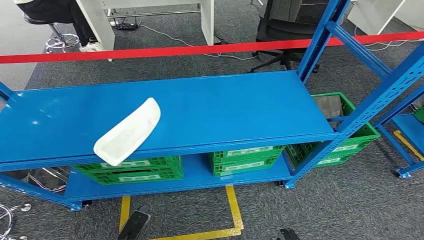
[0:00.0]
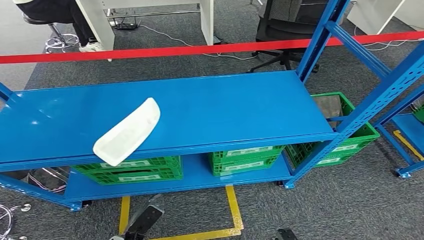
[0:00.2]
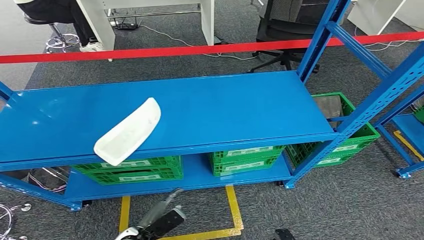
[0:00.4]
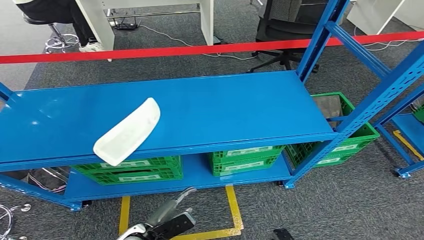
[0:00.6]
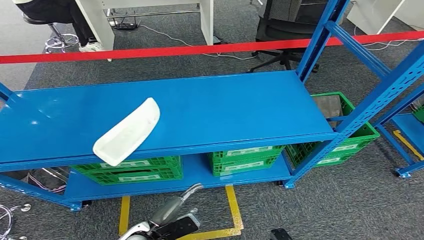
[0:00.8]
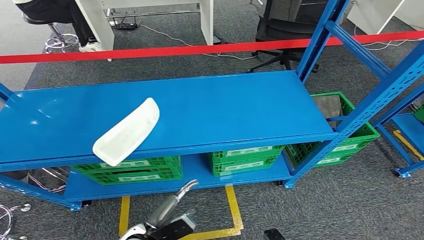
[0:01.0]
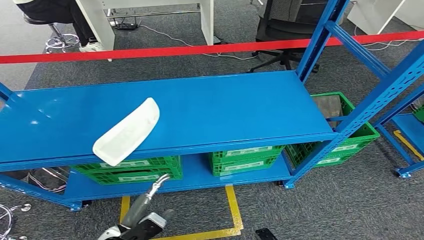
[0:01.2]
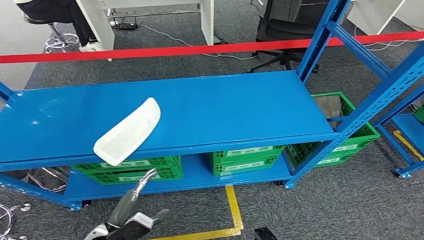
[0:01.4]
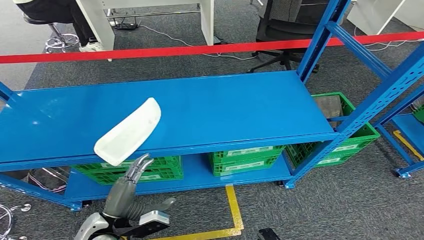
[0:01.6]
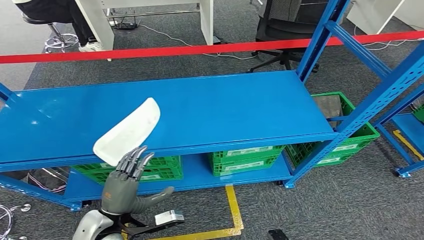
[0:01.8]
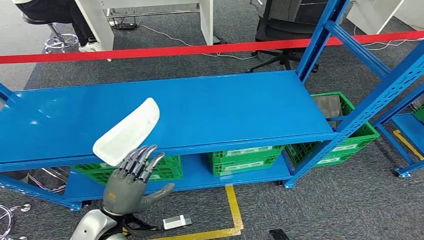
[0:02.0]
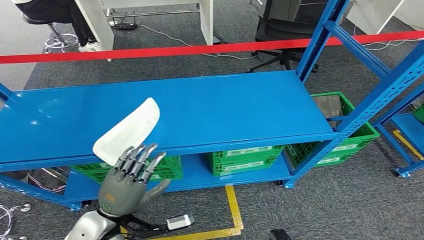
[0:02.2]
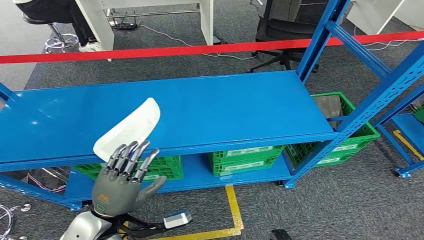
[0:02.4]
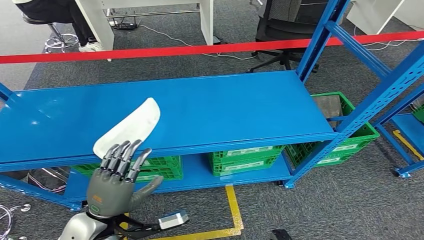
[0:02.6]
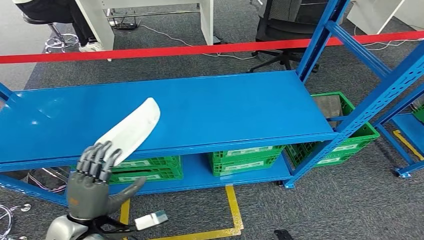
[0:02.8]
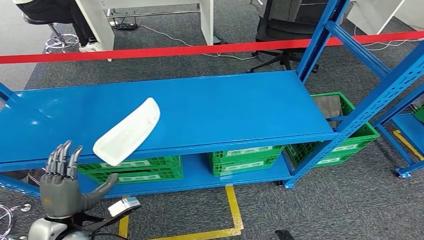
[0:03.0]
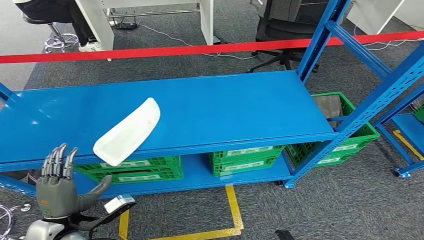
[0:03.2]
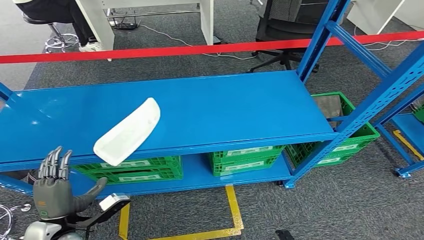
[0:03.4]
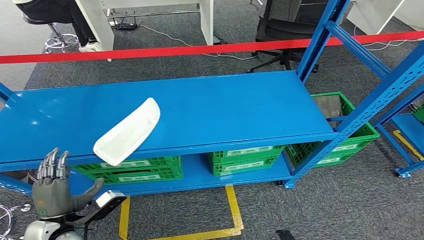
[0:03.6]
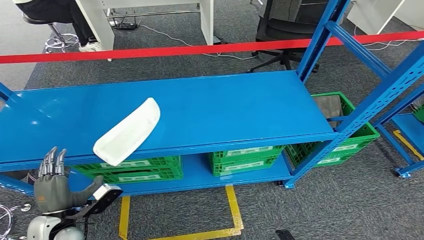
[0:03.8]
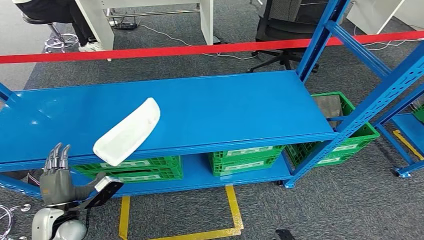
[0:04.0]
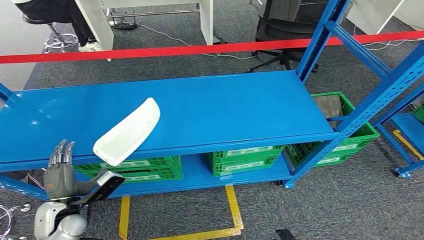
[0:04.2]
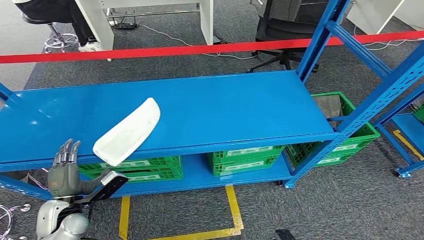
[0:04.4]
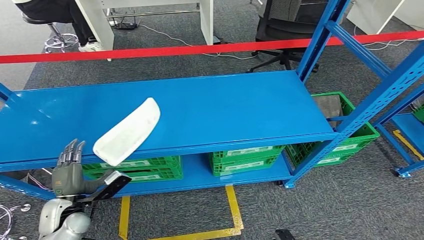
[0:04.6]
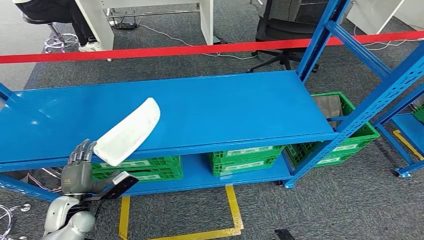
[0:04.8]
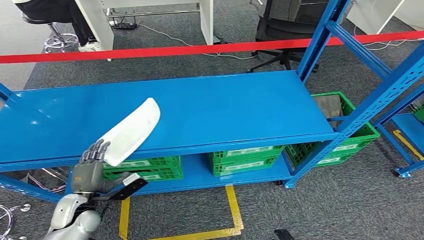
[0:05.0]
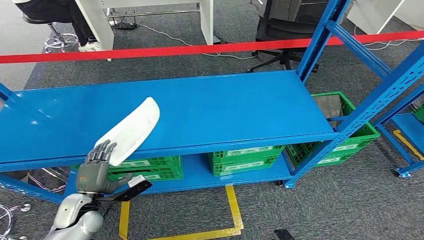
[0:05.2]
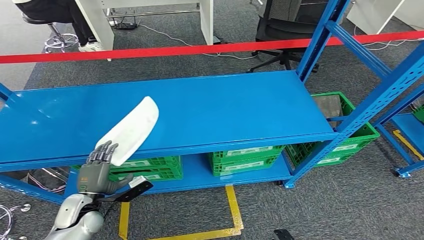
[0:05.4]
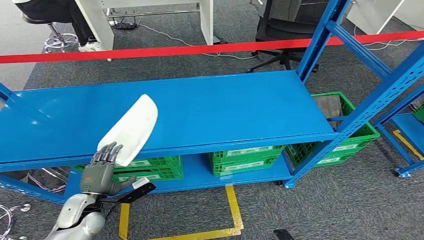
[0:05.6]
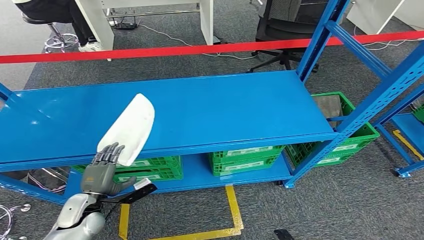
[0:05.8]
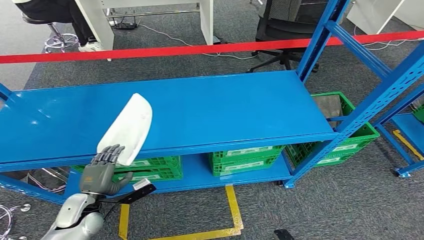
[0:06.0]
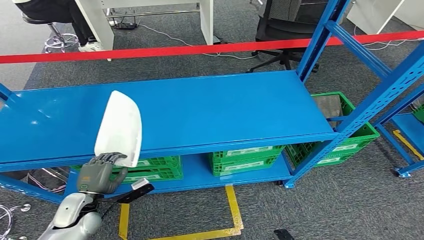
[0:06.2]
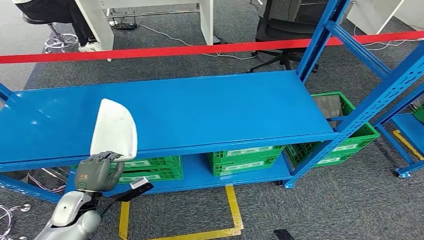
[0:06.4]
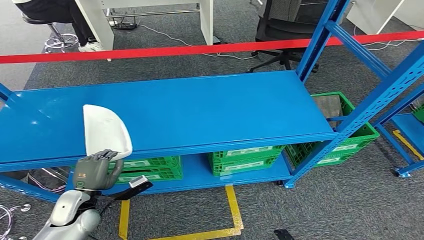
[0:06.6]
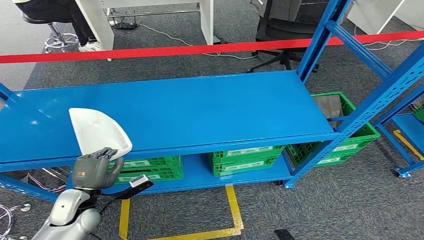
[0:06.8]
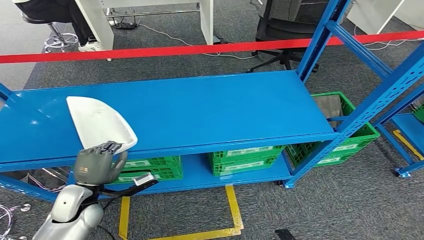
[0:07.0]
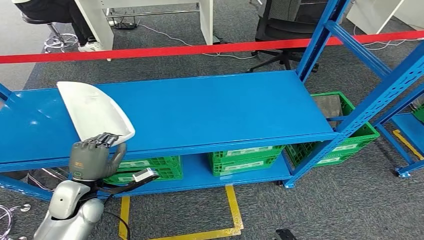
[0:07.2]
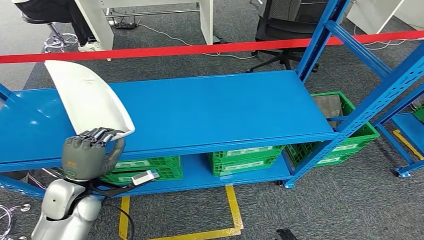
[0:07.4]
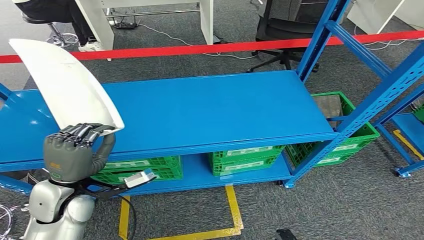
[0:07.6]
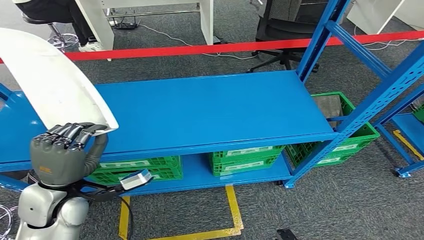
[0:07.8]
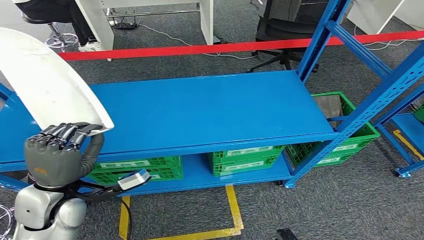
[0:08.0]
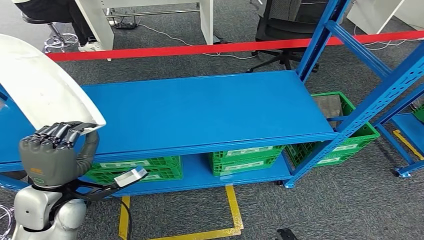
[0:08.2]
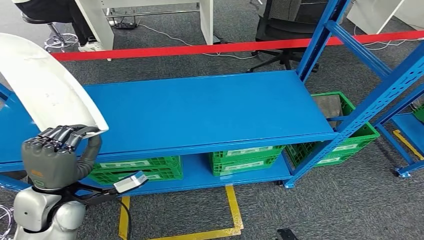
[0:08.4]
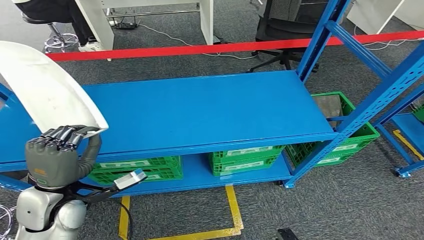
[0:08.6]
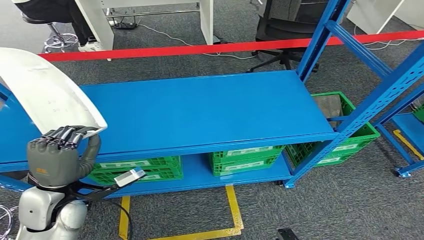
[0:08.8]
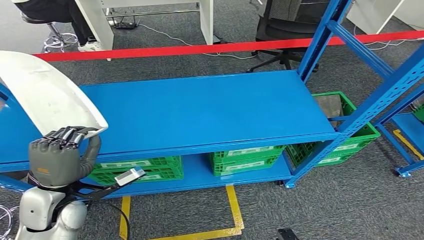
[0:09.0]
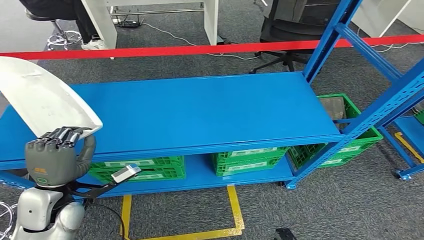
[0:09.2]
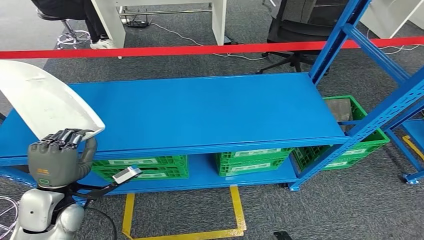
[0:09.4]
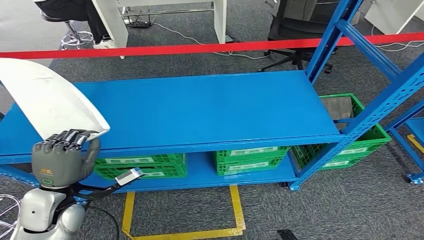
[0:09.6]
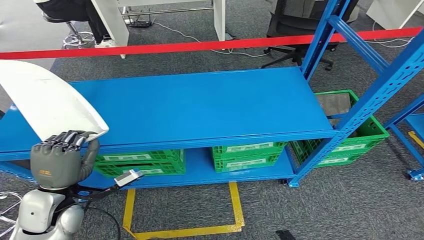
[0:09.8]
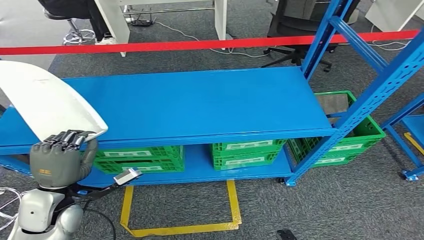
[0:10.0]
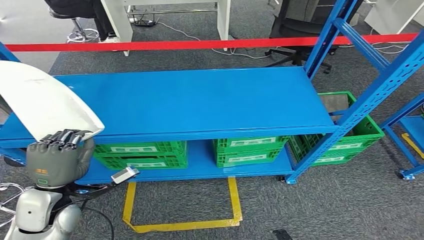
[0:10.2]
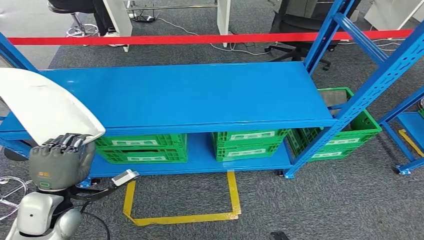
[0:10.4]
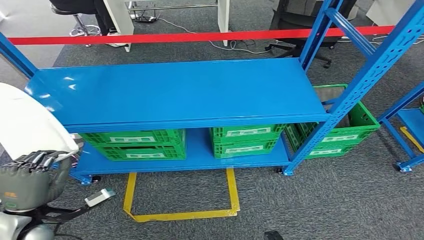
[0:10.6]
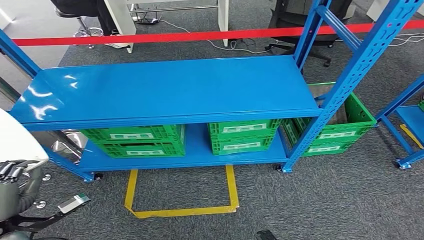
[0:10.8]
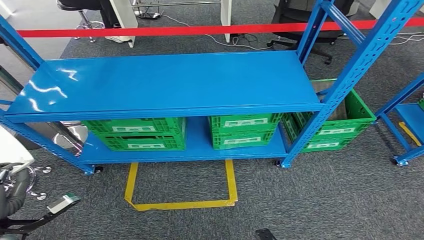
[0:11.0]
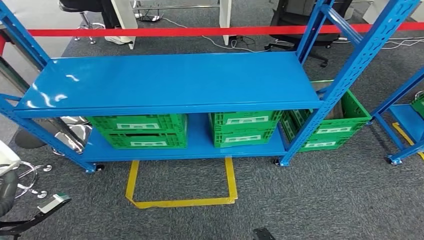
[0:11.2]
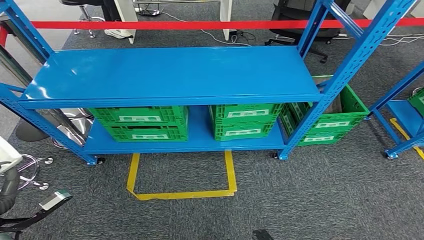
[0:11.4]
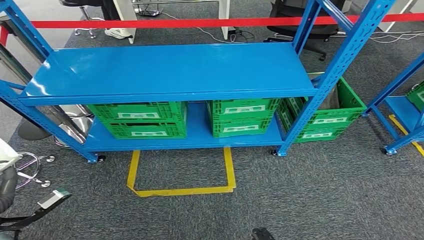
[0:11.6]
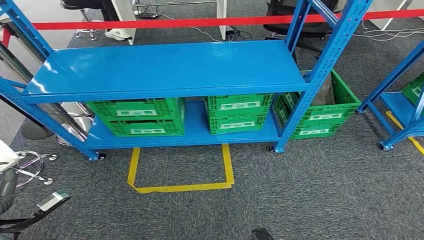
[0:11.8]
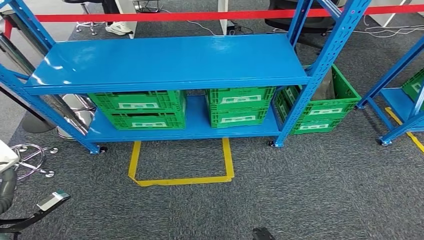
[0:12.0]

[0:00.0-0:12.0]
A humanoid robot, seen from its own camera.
Step, 0:00.0 to 0:08.6: Pick up the small component from the shelf.
0:01.6 to 0:03.0: The left hand is displaced to the left and upward by about 10 cm.
0:03.0 to 0:04.4: The left hand travels downward and forward by some 10 cm.
0:04.4 to 0:06.0: There are only small adjustments of the hands.
0:06.0 to 0:07.6: The left hand shifts approximately 15 cm upward.
0:07.6 to 0:09.0: There are only small adjustments of the hands.

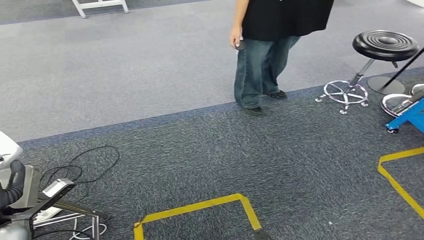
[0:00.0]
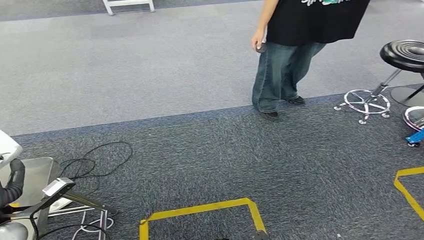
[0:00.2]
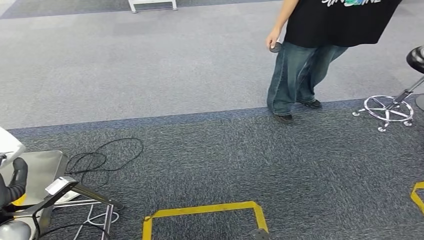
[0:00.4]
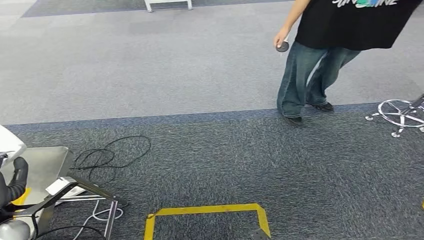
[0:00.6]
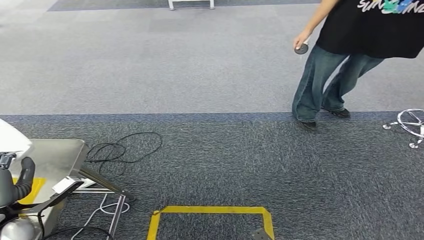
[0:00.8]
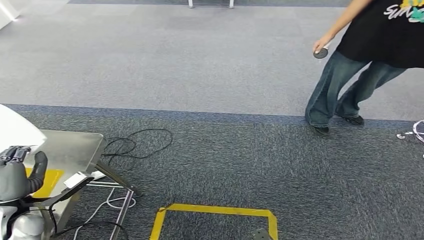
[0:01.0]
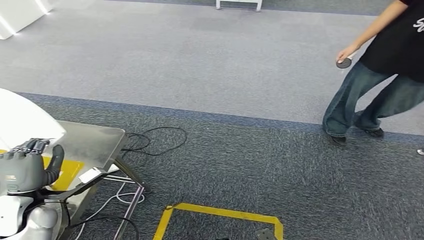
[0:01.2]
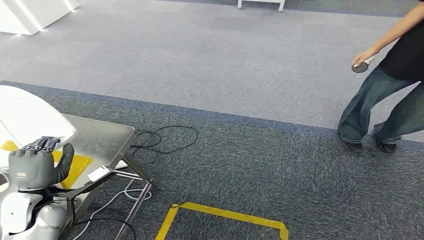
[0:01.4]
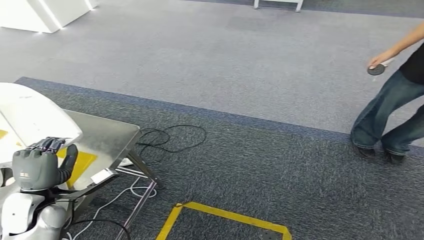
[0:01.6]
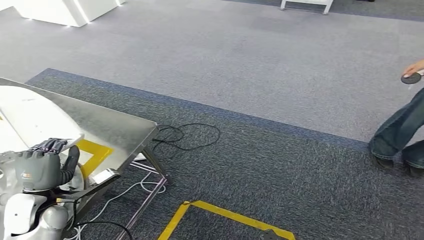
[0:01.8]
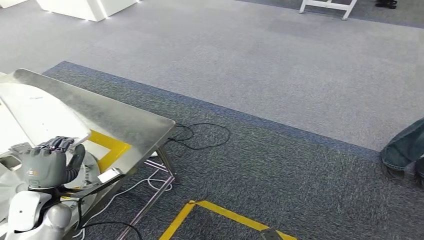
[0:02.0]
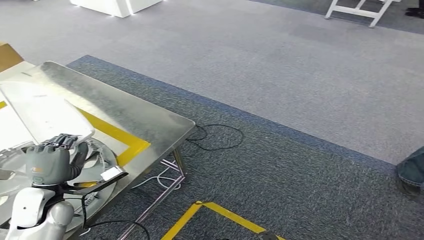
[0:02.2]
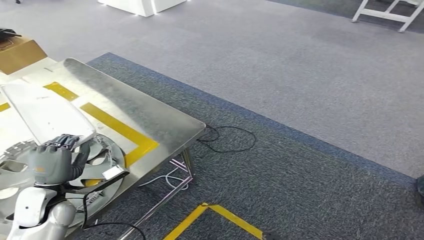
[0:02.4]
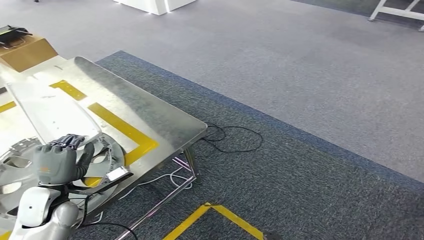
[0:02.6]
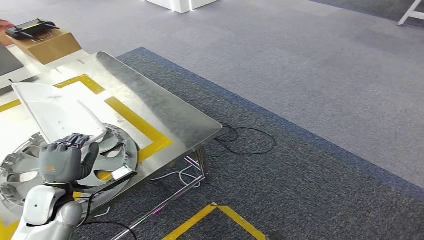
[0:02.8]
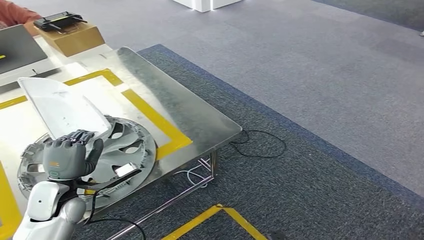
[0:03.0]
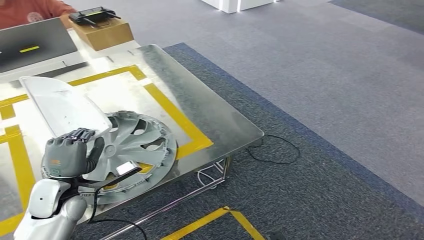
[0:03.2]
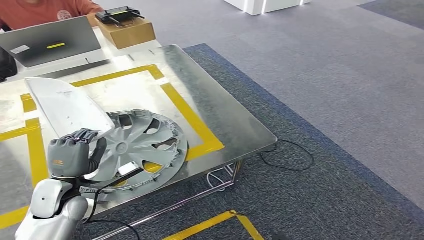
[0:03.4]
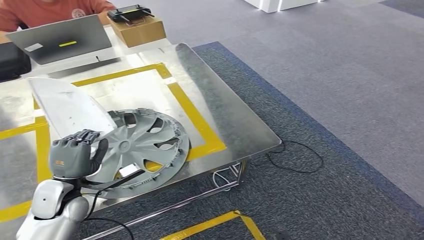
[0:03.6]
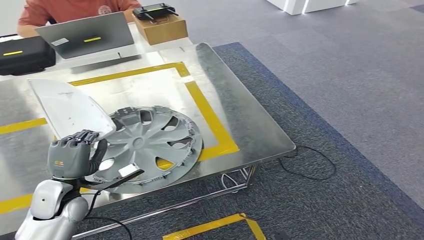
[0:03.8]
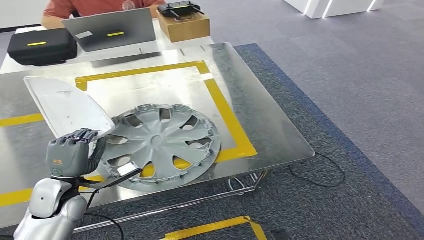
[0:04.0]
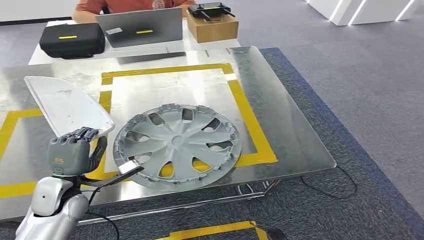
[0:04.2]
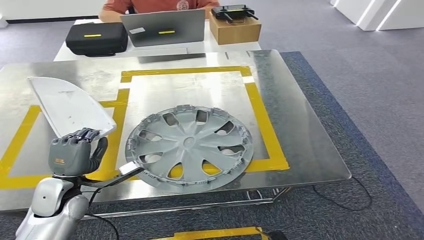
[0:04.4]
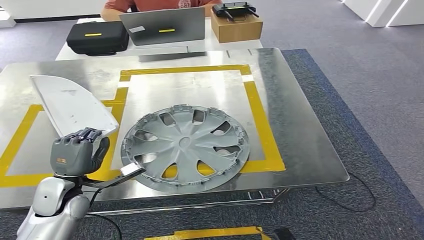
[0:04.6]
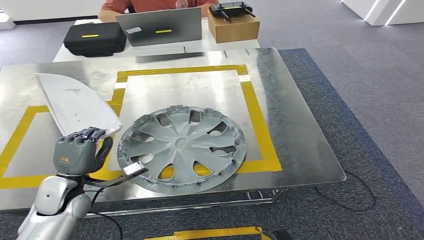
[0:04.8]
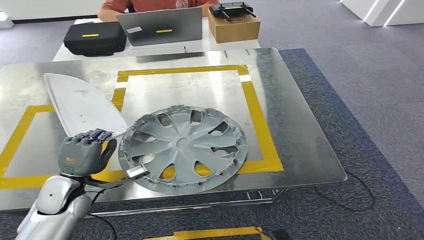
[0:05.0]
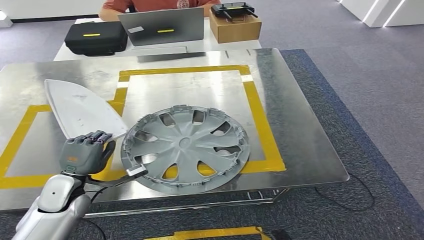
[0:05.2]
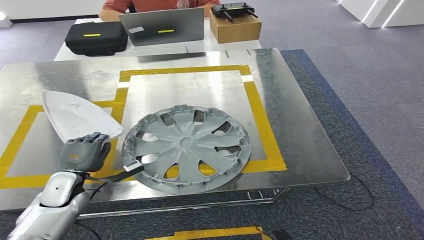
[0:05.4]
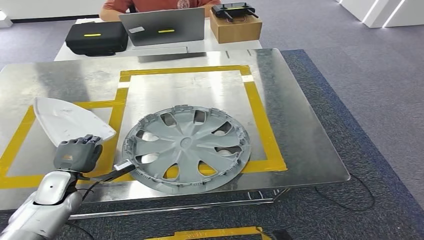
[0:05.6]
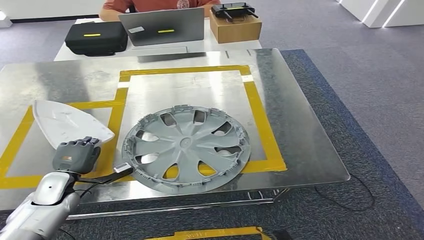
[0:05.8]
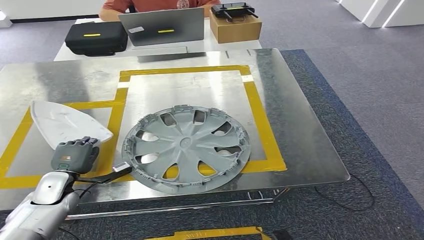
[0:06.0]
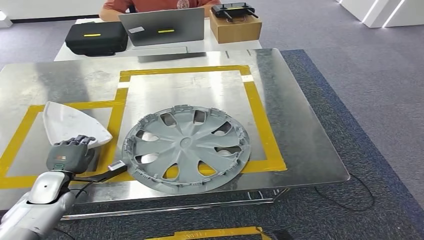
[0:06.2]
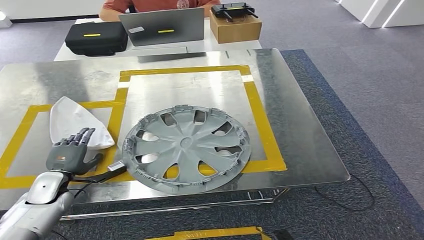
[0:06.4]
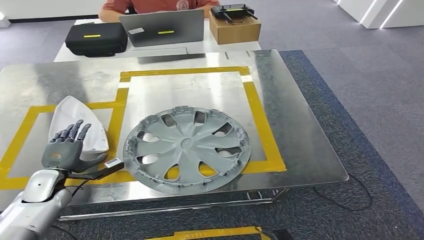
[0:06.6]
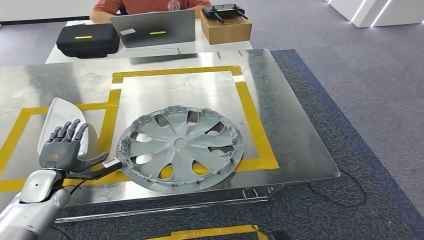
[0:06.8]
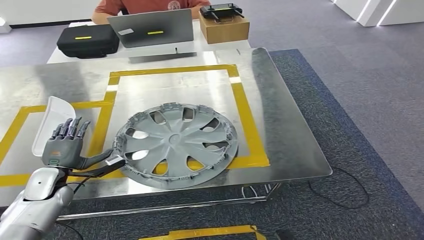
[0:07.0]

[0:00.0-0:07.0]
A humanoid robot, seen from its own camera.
Step, 0:00.0 to 0:05.0: Move the small component to the workbench.
